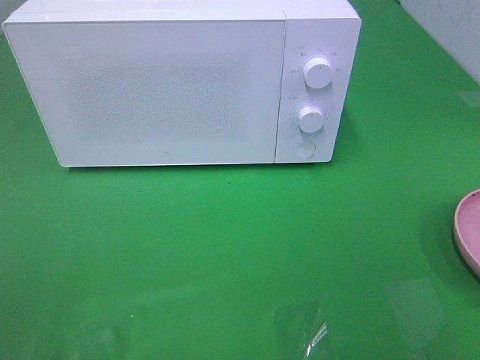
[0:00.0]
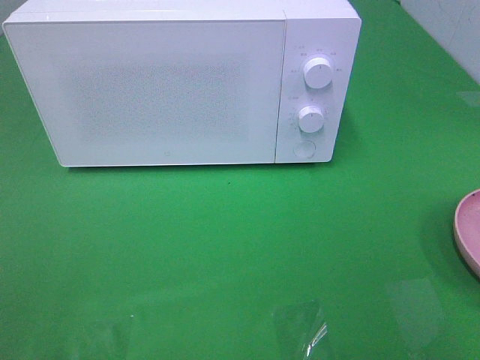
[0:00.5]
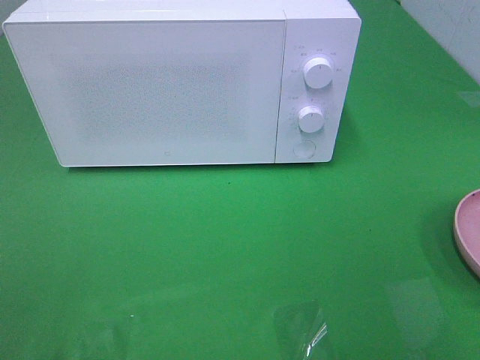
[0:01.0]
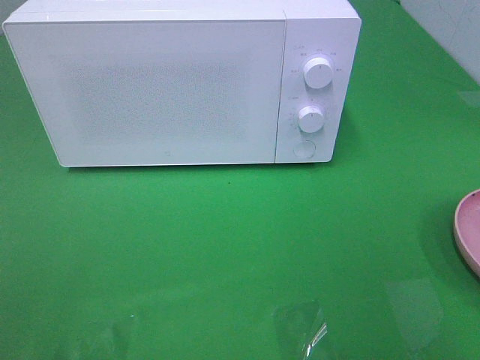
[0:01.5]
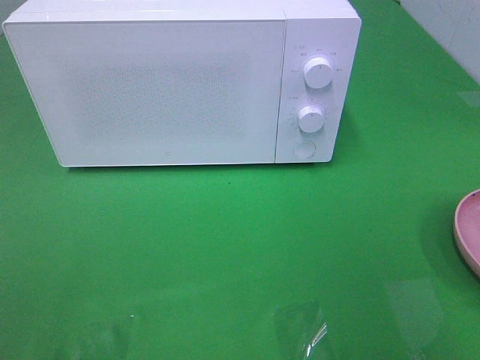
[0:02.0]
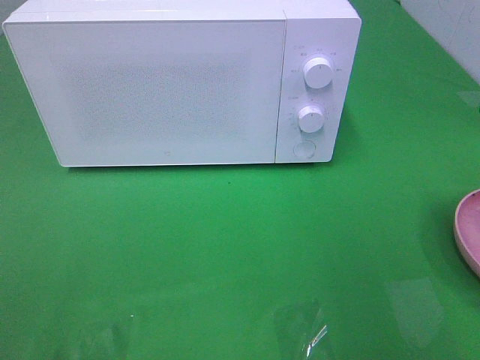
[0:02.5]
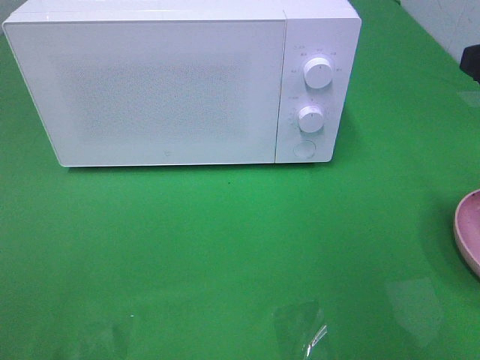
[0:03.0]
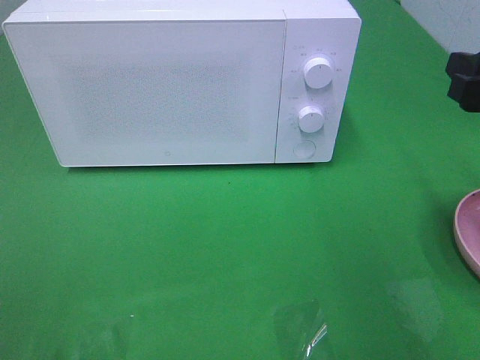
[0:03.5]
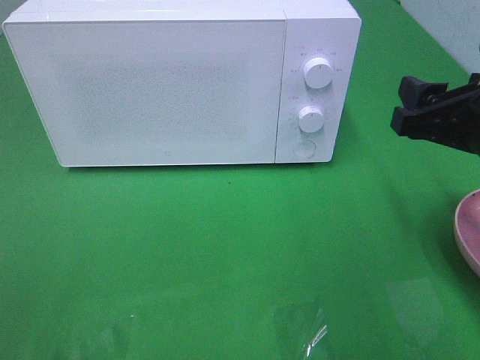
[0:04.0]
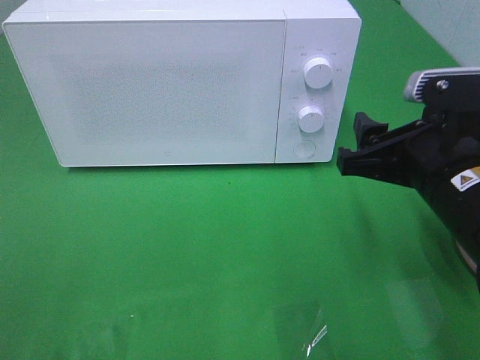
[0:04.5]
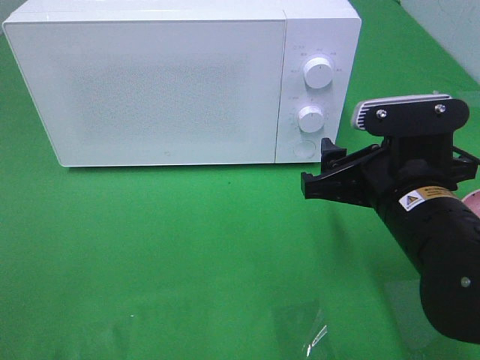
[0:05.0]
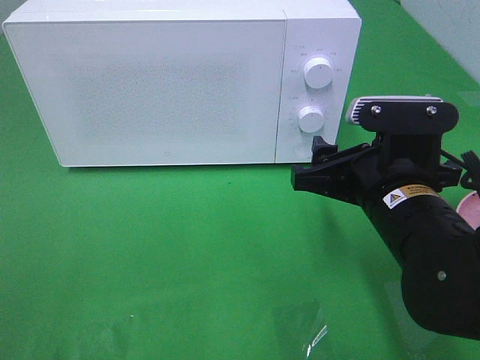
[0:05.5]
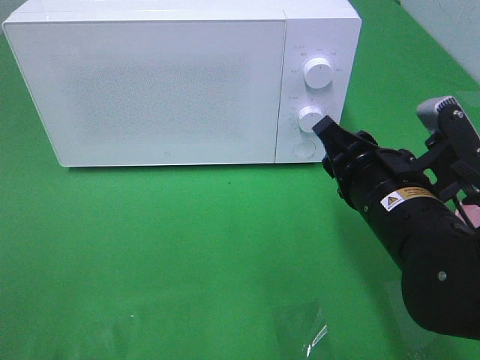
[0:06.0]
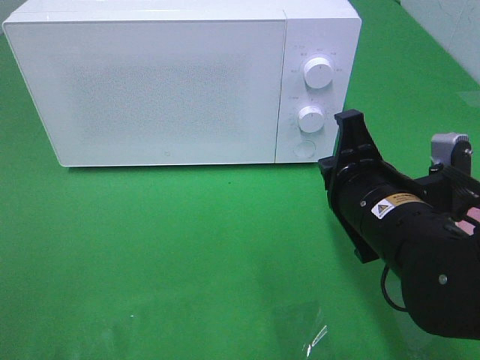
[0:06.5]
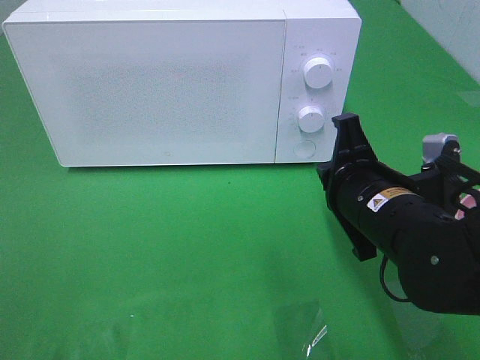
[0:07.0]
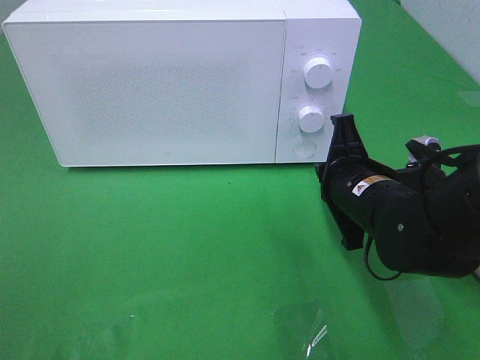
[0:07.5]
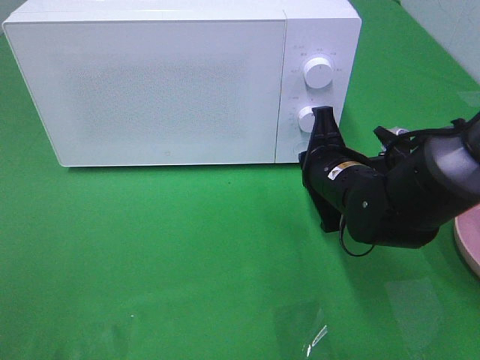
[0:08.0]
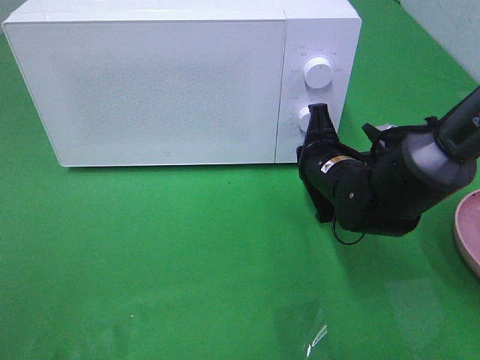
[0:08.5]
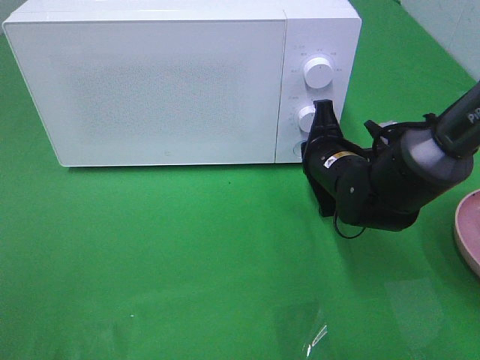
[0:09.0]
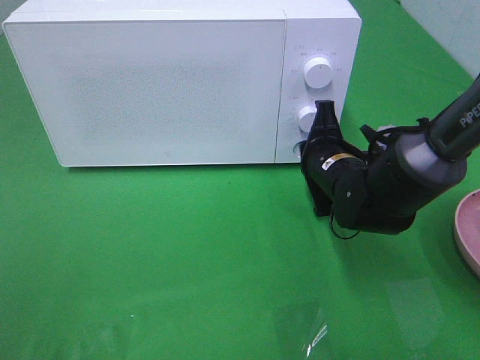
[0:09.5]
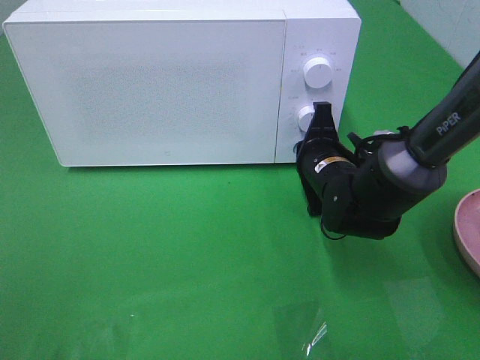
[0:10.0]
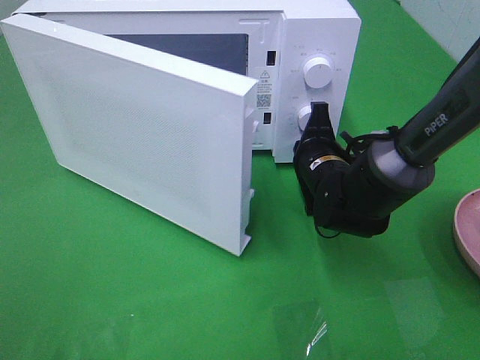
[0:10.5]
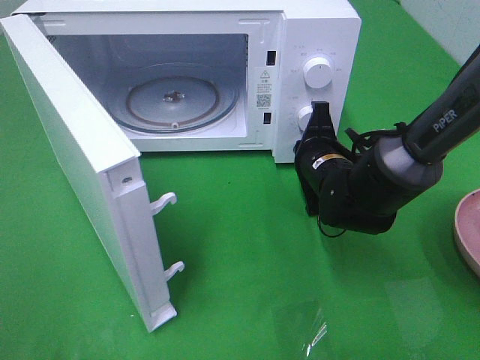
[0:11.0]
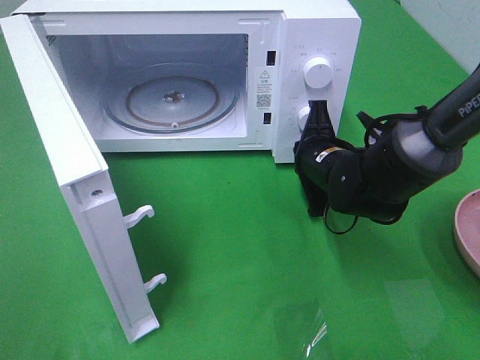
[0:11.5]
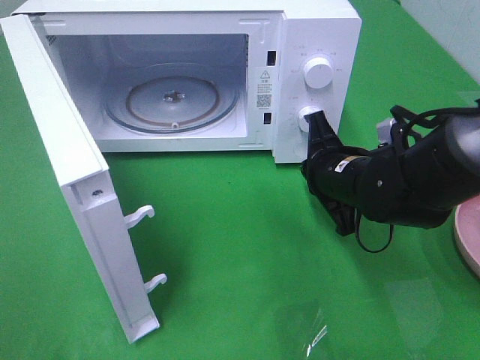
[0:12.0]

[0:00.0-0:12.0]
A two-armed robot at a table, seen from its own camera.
Task of the whole recording: Heat the burger.
Step, 0:00.0 to 0:09.5: Right hand: press the switch.
0:02.0 to 0:04.0: The right gripper moves forward, downward and to the left, about 15 cm.
0:04.0 to 0:06.0: The right gripper is displaced to the left and downward by approximately 10 cm, and closes.
0:06.0 to 0:08.0: The right gripper goes about 10 cm forward and downward, and closes its fingers.
0:08.0 to 0:10.0: The grippers stay close to where they were, moving slightly.

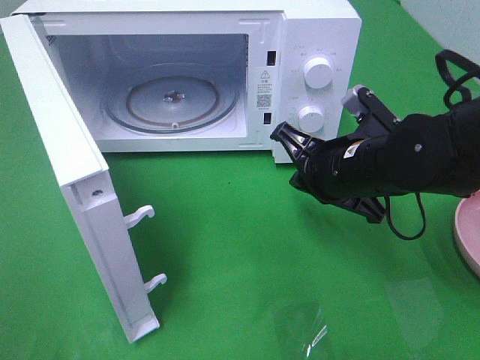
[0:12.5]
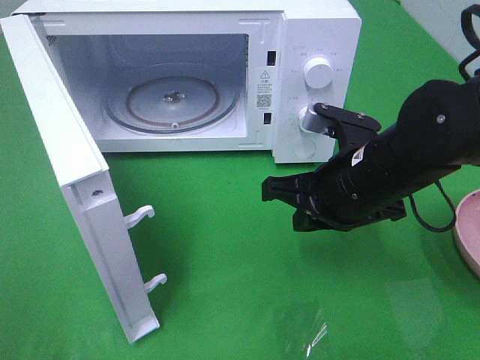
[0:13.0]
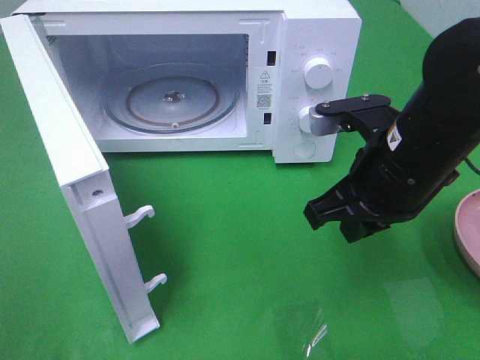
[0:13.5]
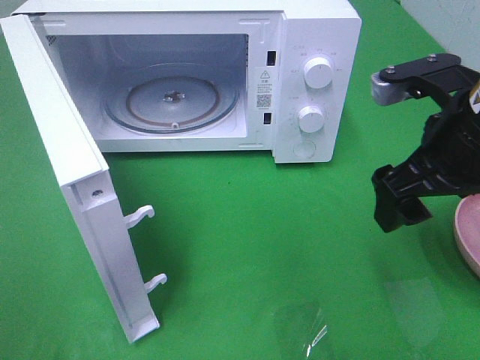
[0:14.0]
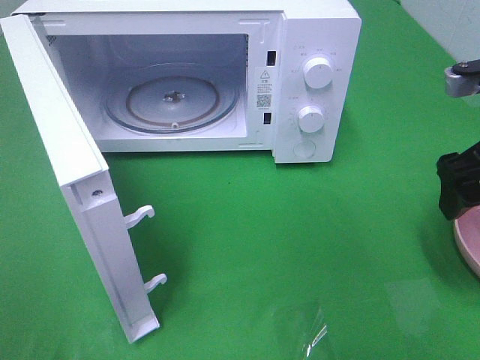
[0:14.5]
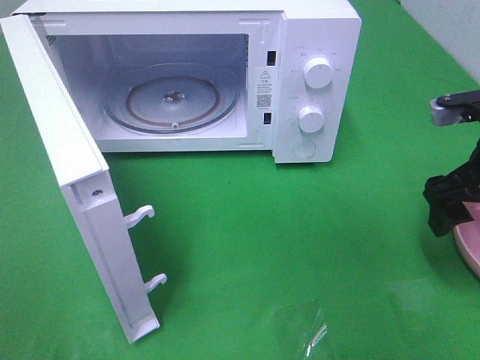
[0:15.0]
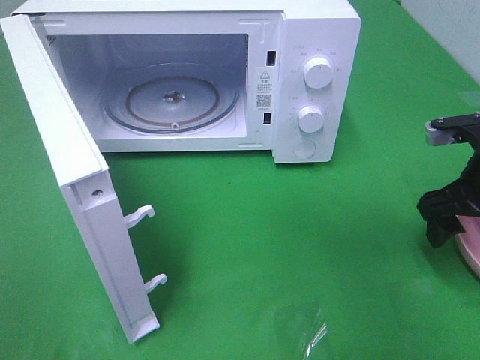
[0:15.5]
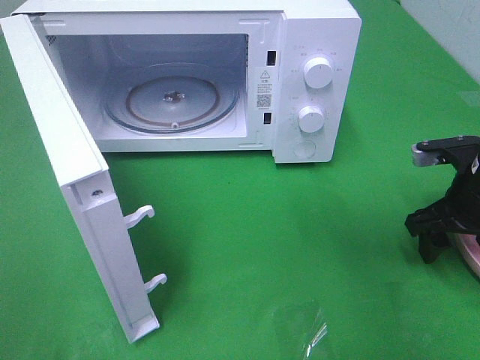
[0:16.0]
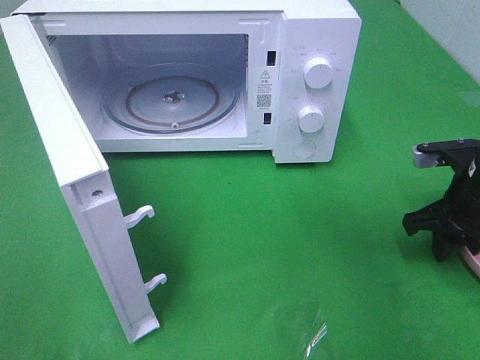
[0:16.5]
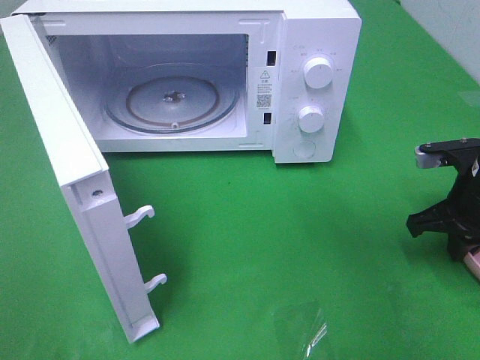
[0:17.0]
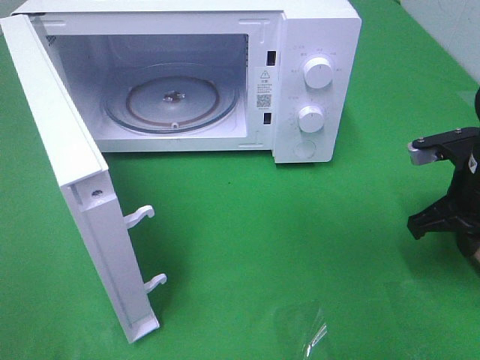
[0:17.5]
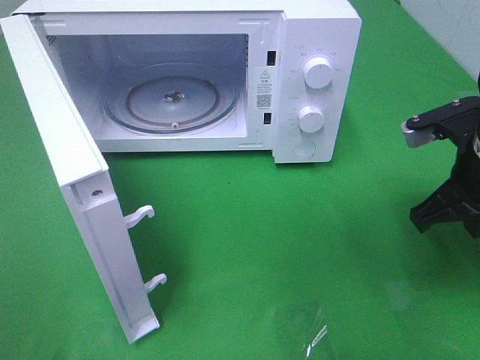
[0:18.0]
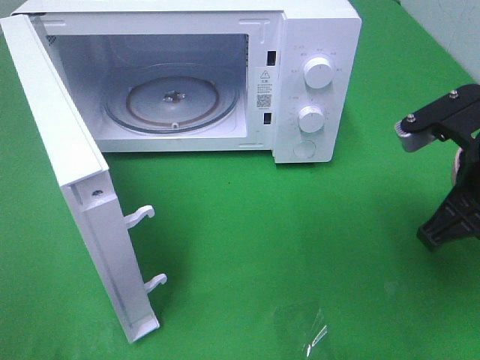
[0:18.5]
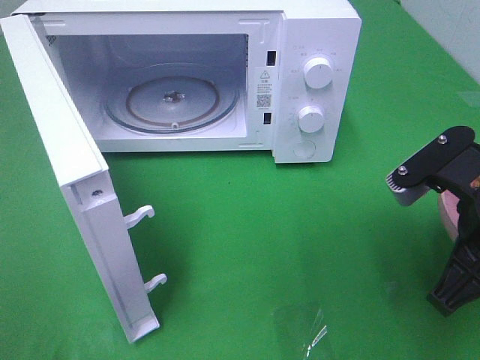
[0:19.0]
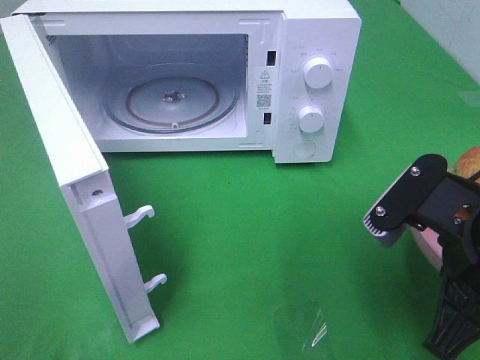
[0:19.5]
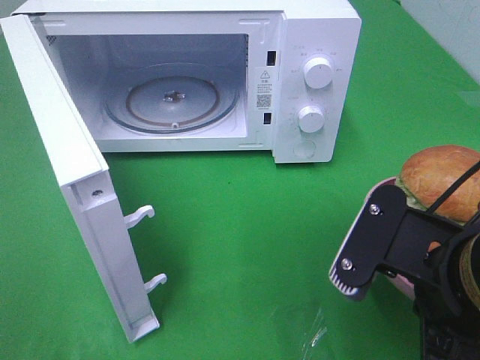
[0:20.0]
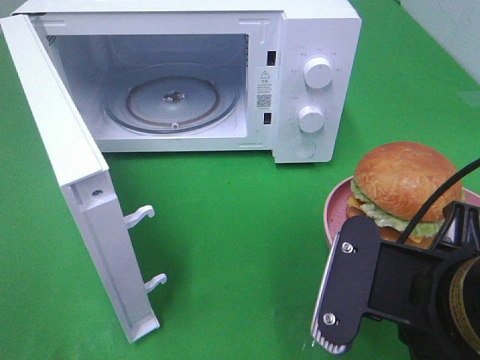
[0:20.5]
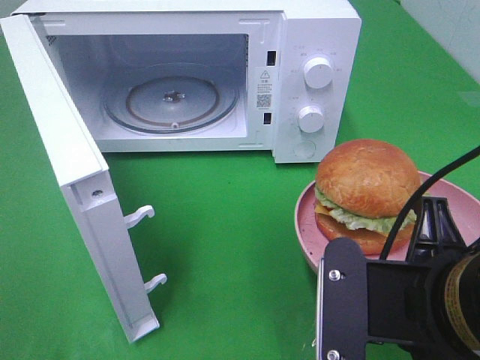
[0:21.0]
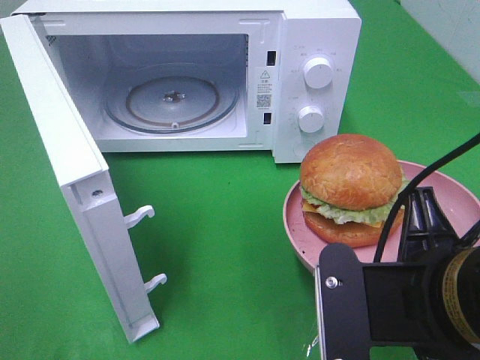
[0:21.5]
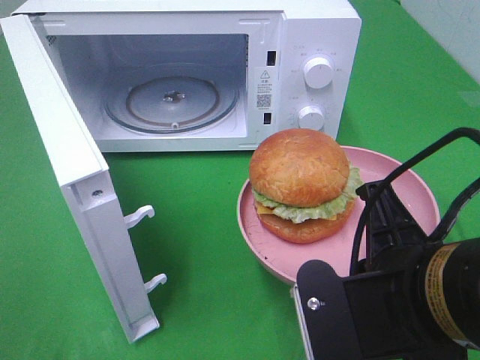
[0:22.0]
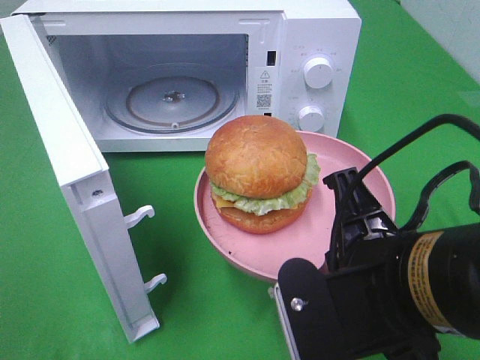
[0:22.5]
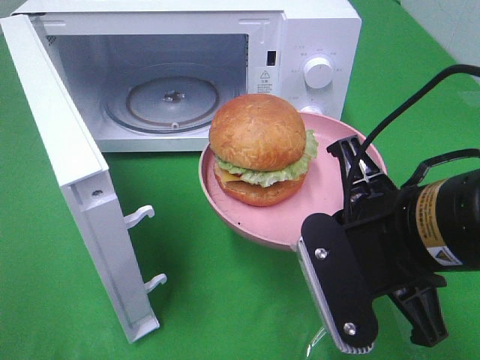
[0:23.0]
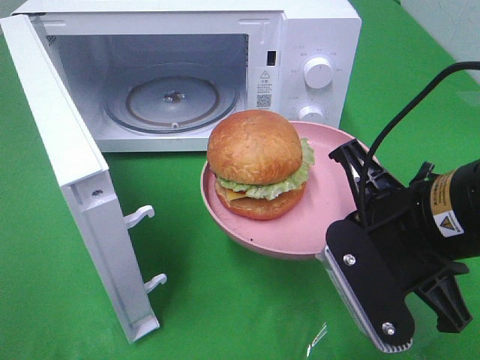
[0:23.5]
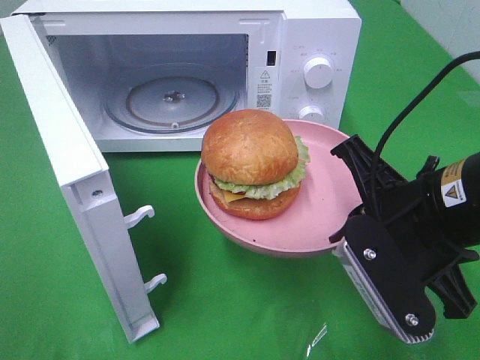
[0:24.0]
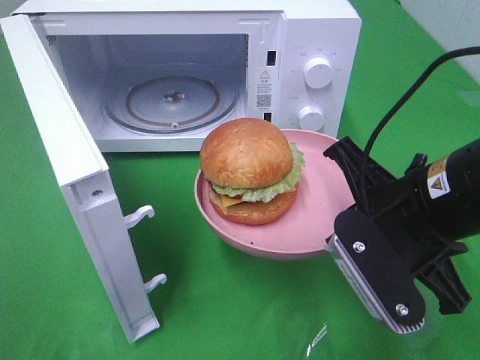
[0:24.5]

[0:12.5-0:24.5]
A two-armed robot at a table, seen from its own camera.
Task of the whole recording: Heat the burger.
Step, 0:12.5 to 0:16.5: Right hand: grab the plate with the hamburger.
0:12.5 to 0:14.5: The right gripper is displaced to the right and upward by roughly 15 cm, and opens its fingers.
0:14.5 to 0:16.5: The right gripper shifts some 15 cm downward, and closes up.
0:16.5 to 0:18.5: The right gripper shifts approximately 15 cm upward, backward and to the left, and closes its fingers.
0:18.5 to 0:20.5: The right gripper moves backward and to the left, about 15 cm.
0:22.5 to 0:24.5: The right gripper goes approximately 10 cm forward.

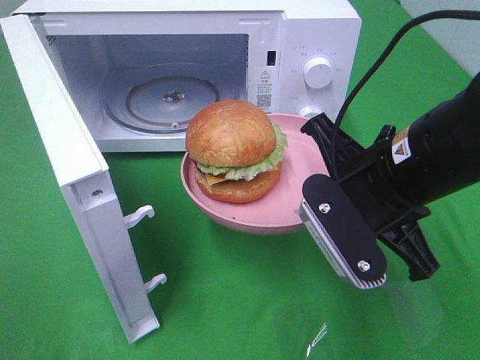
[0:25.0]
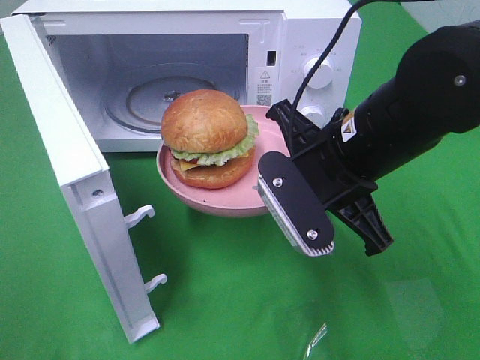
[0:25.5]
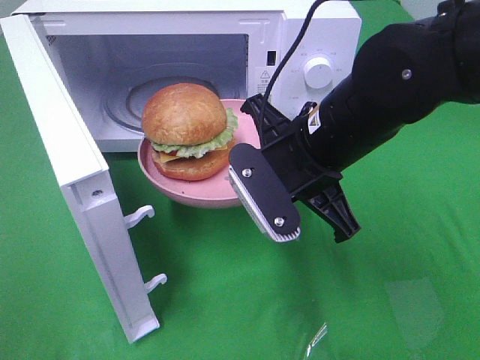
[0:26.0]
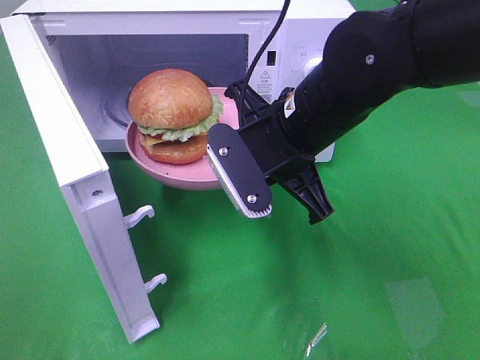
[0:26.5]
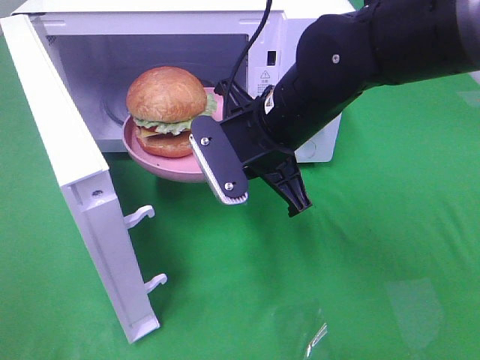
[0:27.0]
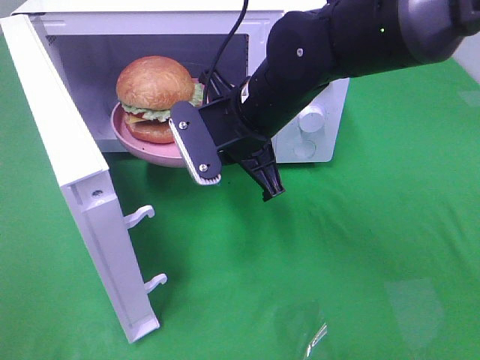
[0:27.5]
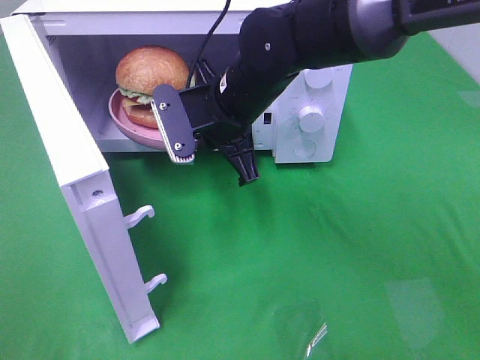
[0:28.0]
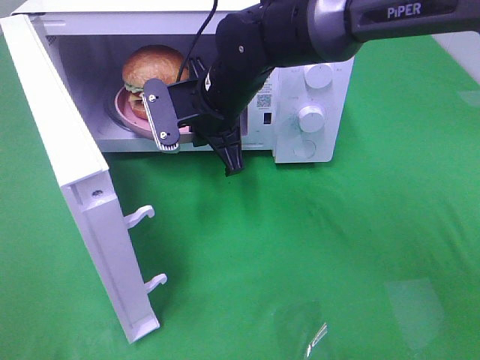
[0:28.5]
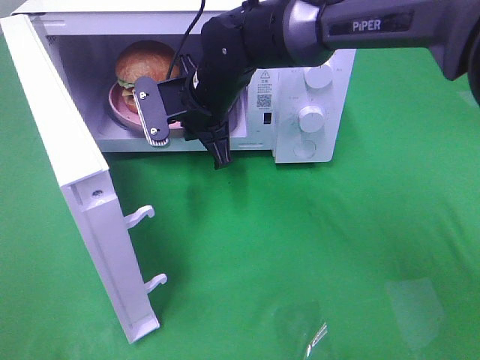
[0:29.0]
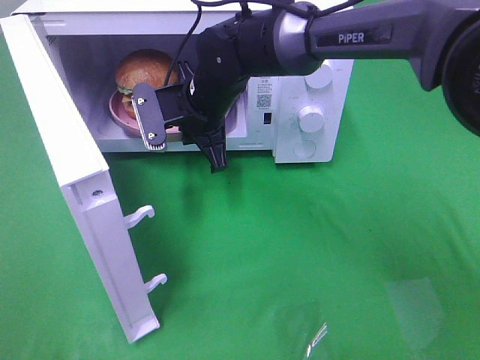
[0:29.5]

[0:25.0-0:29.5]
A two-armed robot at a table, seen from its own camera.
Task of the whole recording: Heat the burger.
0:25.0 to 0:27.0: The right gripper is displaced to the left and forward by some 10 cm.
0:27.0 to 0:29.5: The right gripper heads forward and to the left, covering roughly 15 cm.
